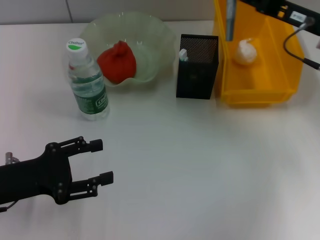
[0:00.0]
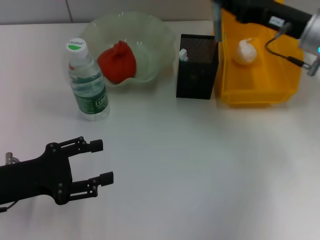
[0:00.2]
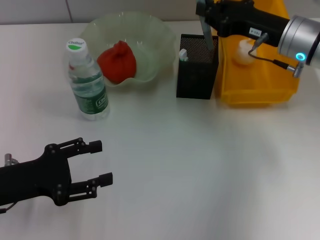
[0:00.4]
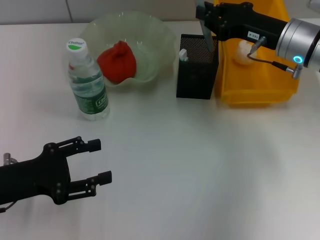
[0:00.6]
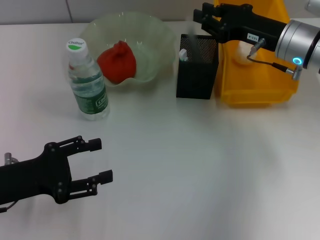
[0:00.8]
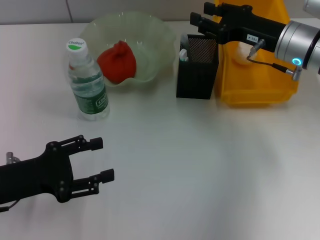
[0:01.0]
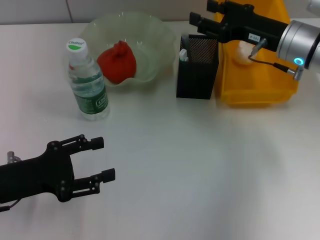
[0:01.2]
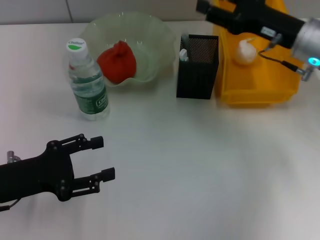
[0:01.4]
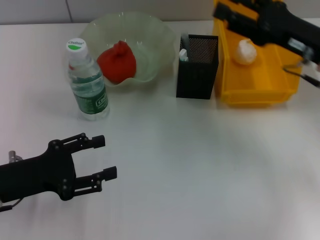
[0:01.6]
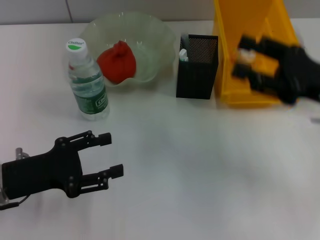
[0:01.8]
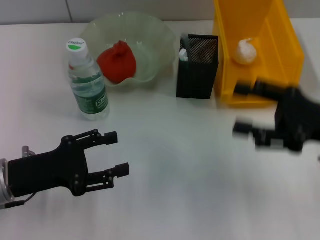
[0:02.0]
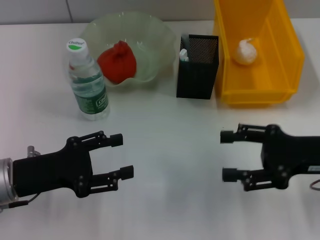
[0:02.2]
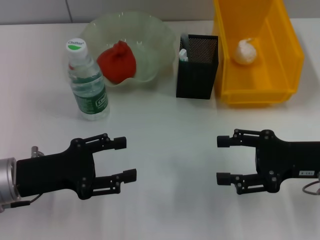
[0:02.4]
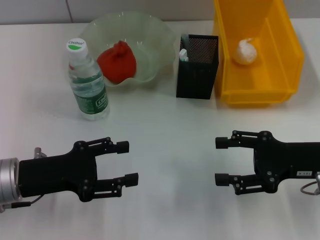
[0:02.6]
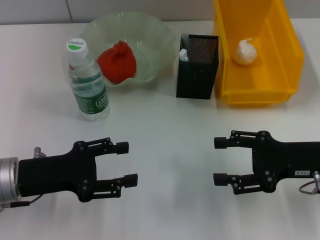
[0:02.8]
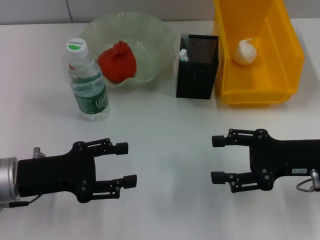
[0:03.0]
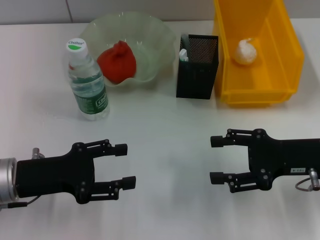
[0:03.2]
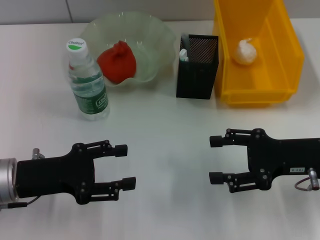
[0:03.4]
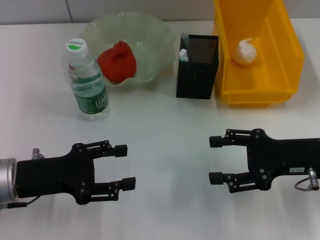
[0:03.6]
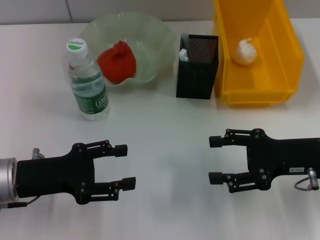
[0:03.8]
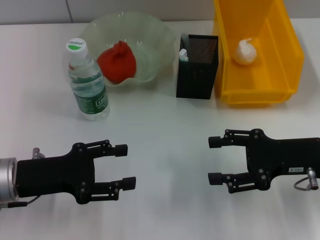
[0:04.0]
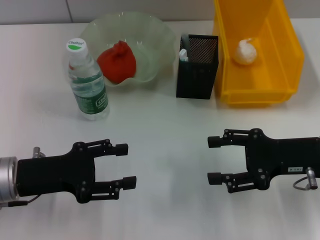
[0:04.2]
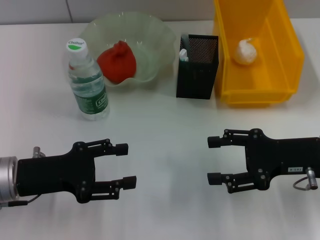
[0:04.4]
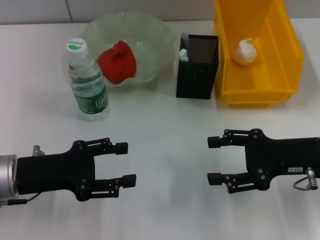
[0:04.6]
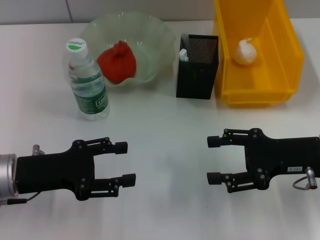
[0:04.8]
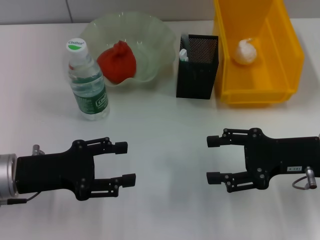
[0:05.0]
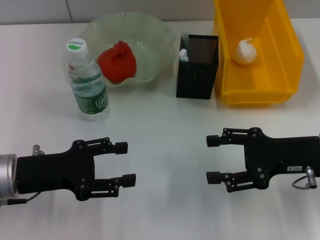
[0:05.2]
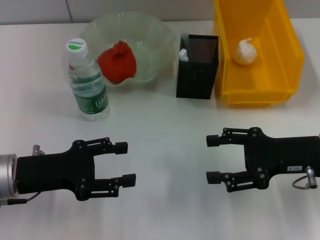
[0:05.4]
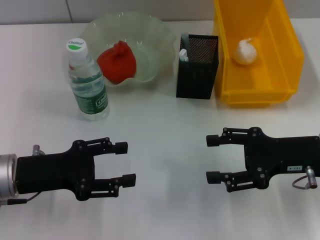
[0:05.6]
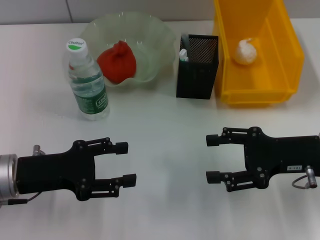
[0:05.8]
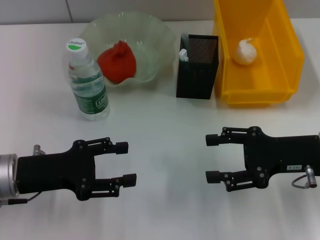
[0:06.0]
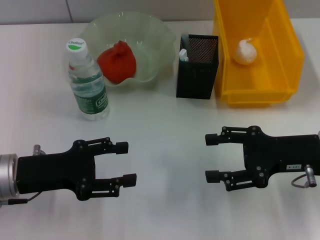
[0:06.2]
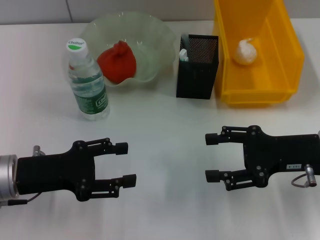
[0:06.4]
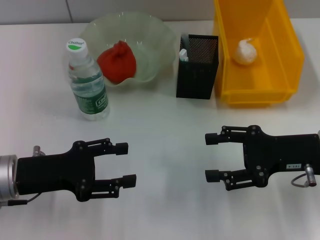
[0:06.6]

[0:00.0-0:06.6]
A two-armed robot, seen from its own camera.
0:00.0 to 0:01.6: The right gripper opens.
0:01.6 to 0:03.2: The right gripper travels backward and downward by approximately 10 cm.
0:03.2 to 0:06.6: Both grippers stay put.
